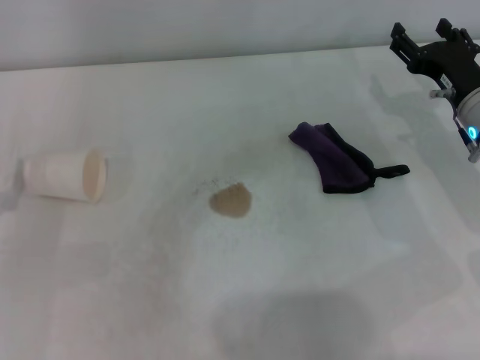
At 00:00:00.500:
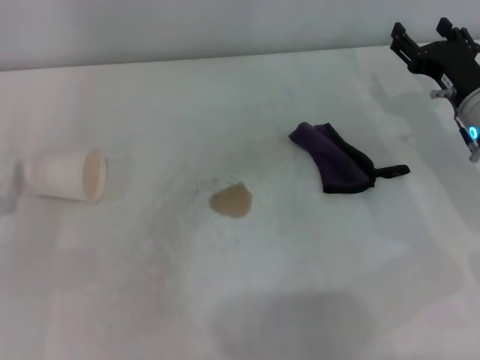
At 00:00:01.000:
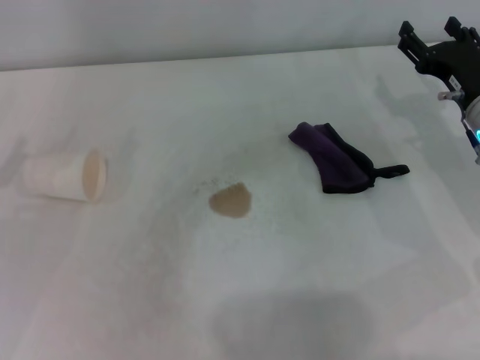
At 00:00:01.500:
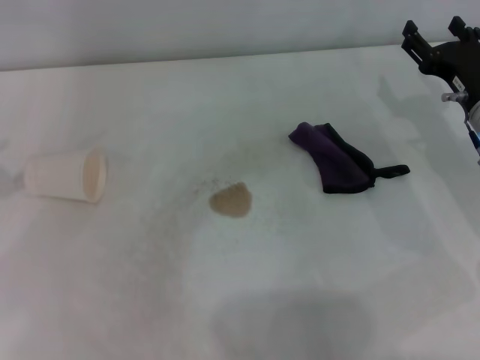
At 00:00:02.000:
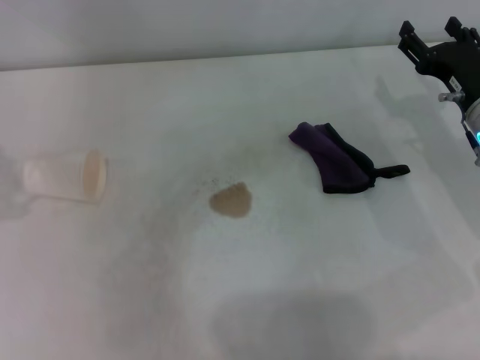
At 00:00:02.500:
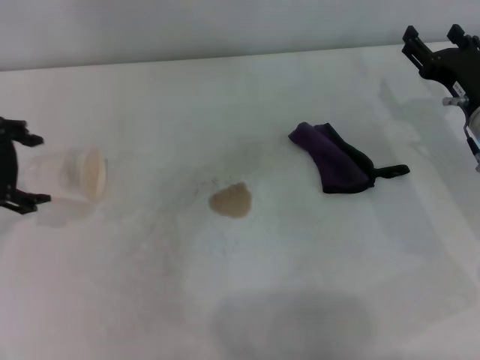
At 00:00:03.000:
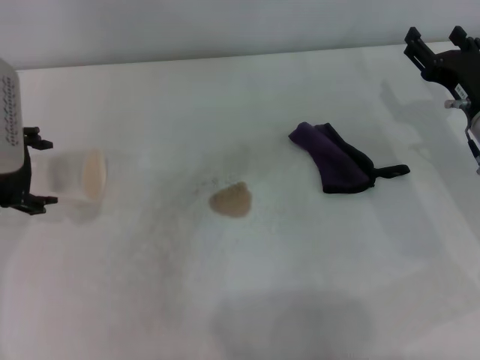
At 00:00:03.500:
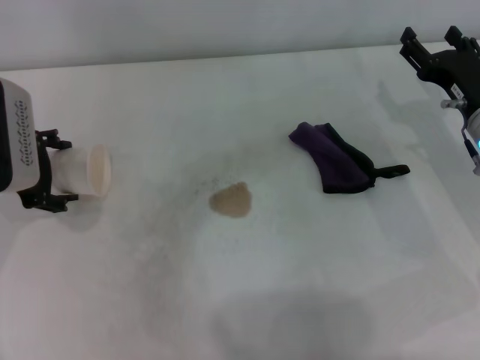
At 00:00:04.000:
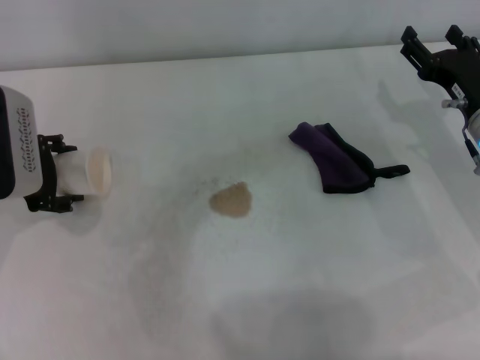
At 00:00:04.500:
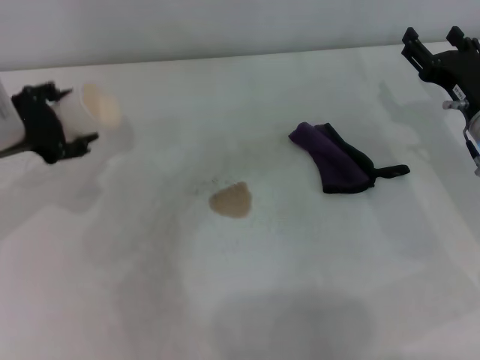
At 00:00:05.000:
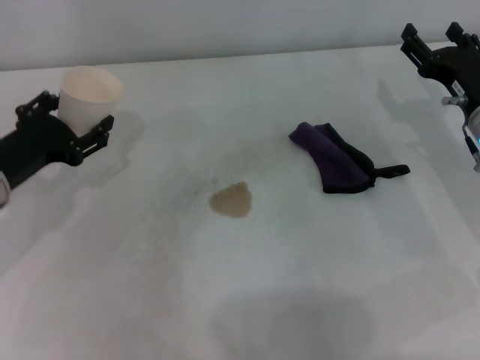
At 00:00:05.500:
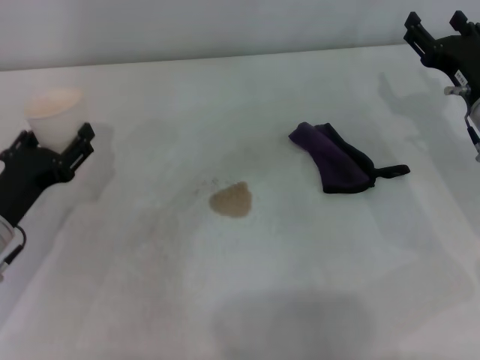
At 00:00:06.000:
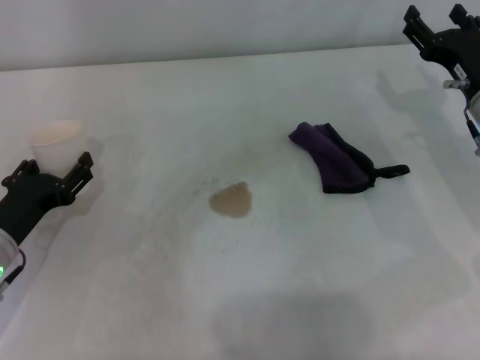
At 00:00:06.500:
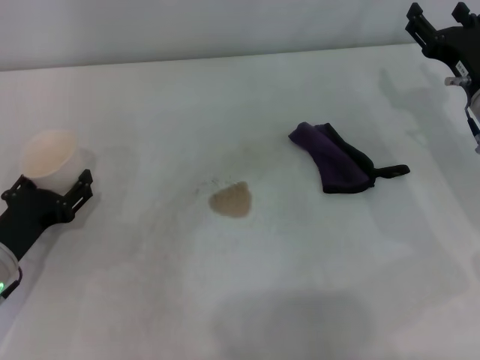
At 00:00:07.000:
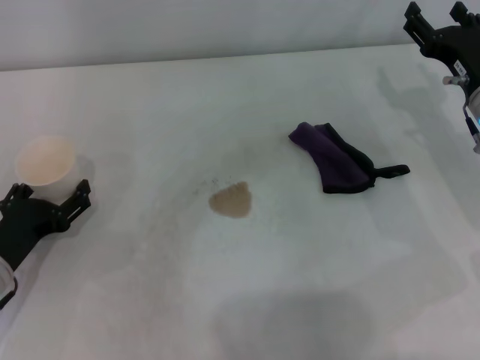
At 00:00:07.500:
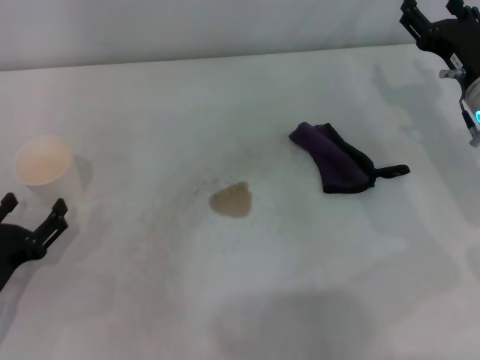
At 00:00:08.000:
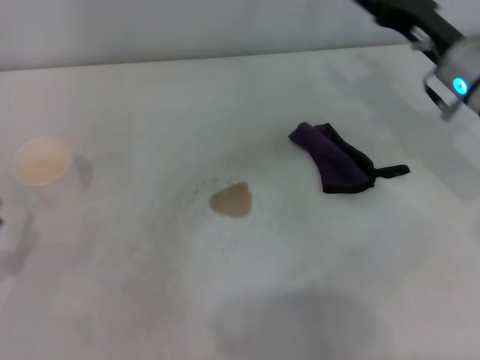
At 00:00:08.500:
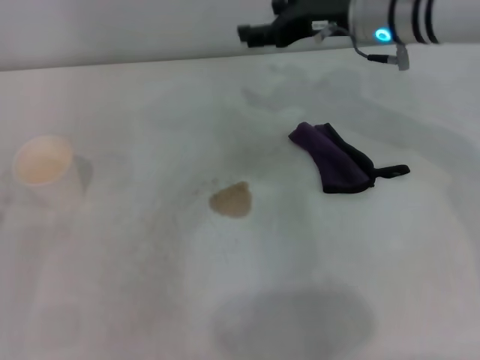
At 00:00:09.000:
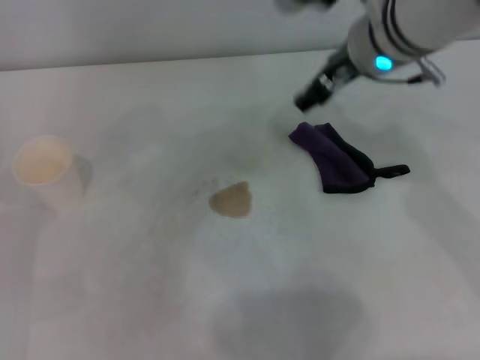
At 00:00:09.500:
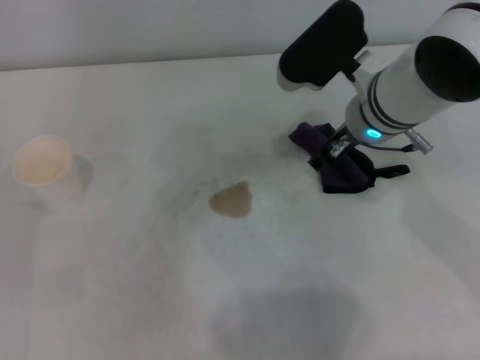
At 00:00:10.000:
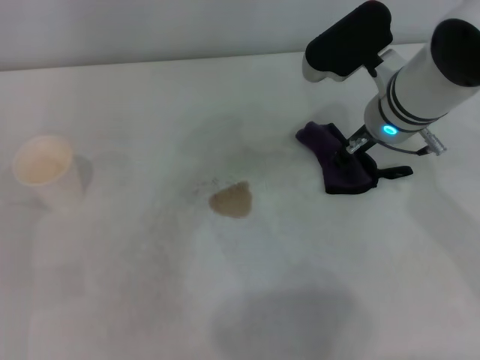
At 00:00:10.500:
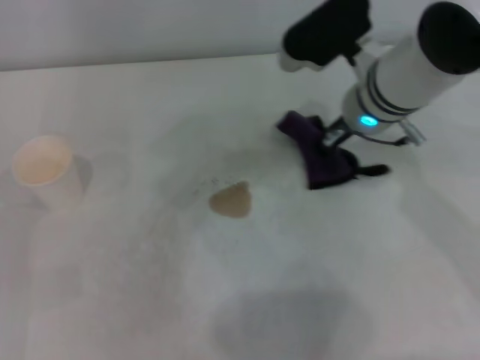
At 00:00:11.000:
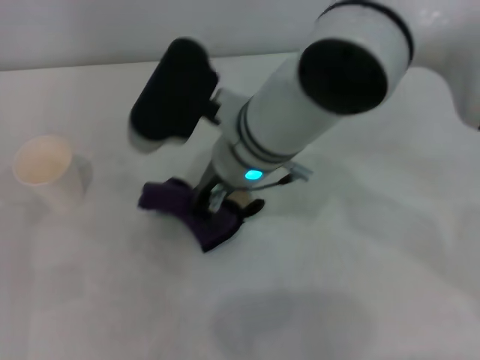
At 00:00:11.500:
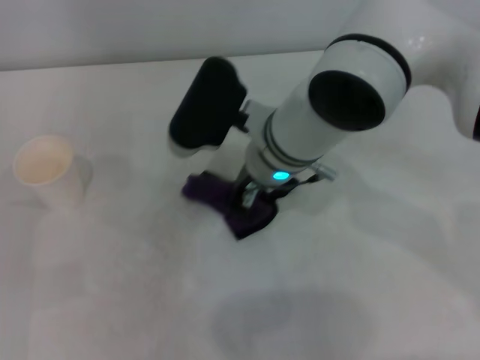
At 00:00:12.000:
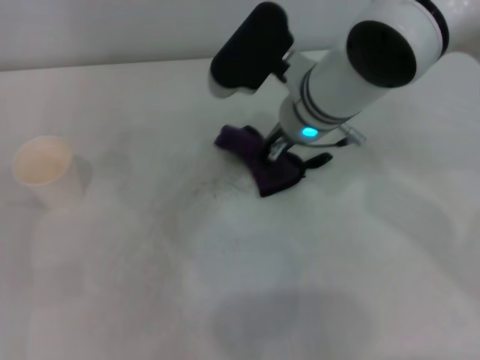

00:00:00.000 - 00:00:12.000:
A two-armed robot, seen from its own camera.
Step, 00:00:00.000 - 00:00:03.500: Grasp the paper cup with the left gripper.
Step, 00:00:04.500 - 00:00:06.500: Stand the paper cup upright with the left gripper.
Step, 00:00:07.000 - 00:00:10.000: Grasp the rag with the right gripper.
00:00:02.000 - 00:00:04.000: The left gripper travels downward and to the right by about 15 cm.
00:00:04.000 - 00:00:06.000: The left gripper moves downward and backward, roughly 10 cm, and closes up.
00:00:06.000 - 00:00:08.000: The right gripper moves approximately 5 cm. The left gripper goes some 10 cm backward and to the left, and opens.
00:00:08.000 - 00:00:10.000: The left gripper goes approximately 5 cm forward. Meanwhile the right gripper moves to the left, approximately 10 cm.
00:00:10.000 - 00:00:12.000: The right gripper travels to the left by some 10 cm, and closes.

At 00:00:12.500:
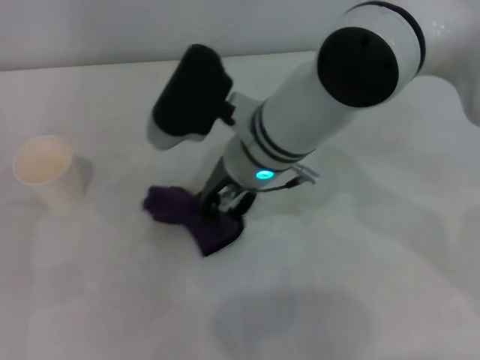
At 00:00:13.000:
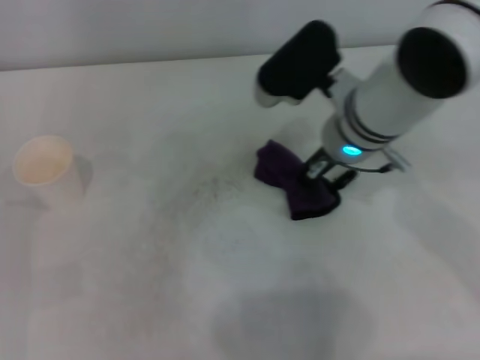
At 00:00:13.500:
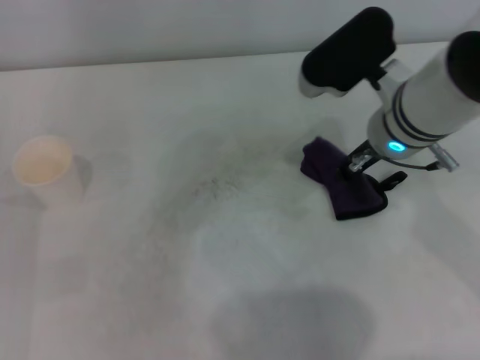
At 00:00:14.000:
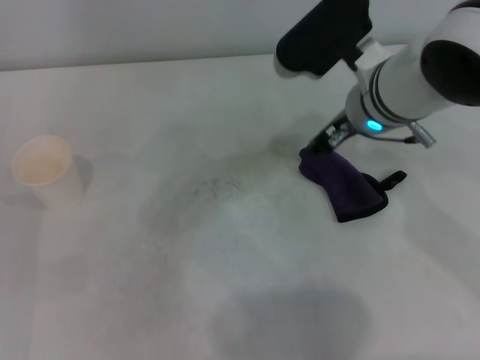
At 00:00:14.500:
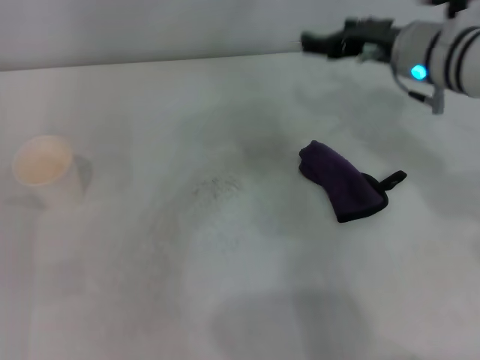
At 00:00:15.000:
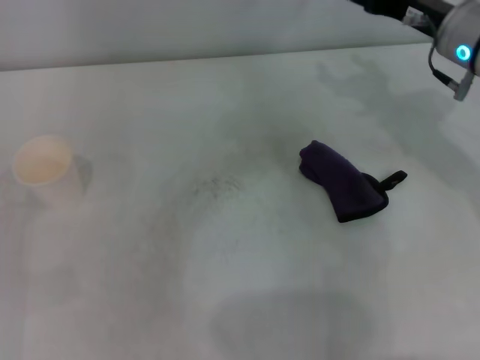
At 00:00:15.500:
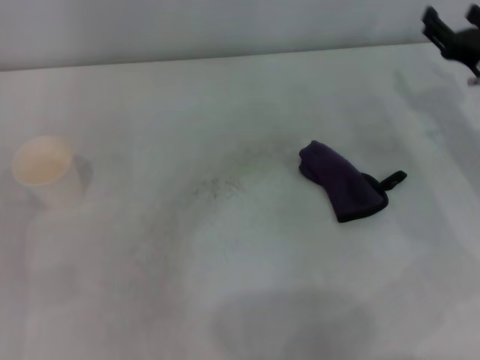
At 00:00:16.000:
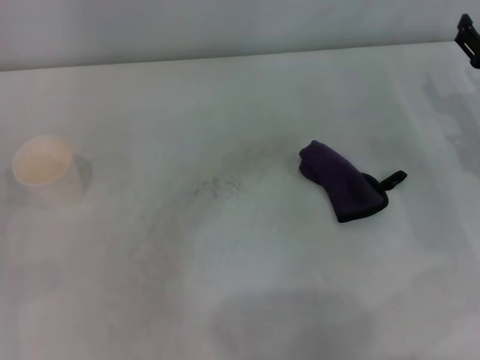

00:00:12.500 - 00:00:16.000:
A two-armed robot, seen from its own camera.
Step, 00:00:13.000 - 00:00:13.500: Place the rag on the table with the right gripper.
00:00:12.500 - 00:00:14.500: The right gripper shifts approximately 15 cm to the right, and opens.
00:00:14.500 - 00:00:16.000: The right gripper goes some 15 cm to the right and downward.

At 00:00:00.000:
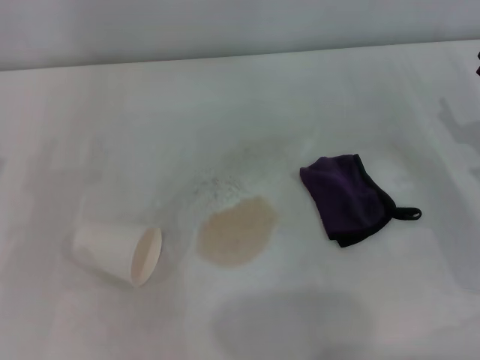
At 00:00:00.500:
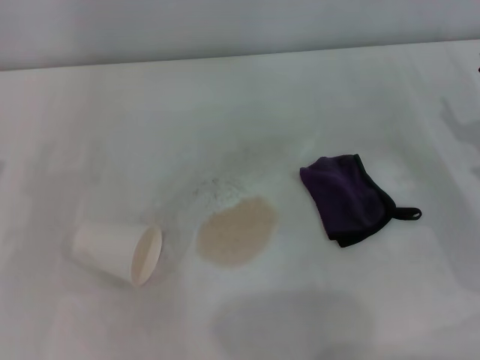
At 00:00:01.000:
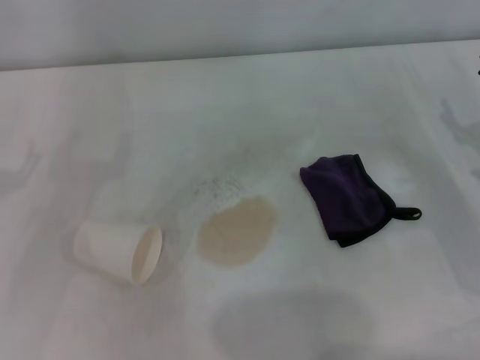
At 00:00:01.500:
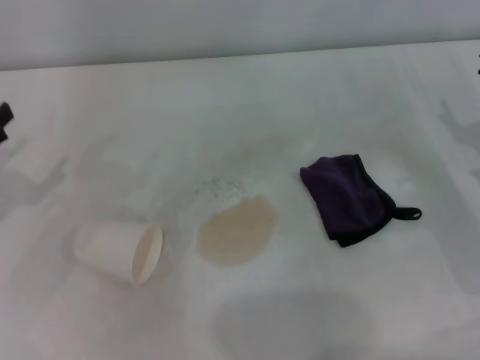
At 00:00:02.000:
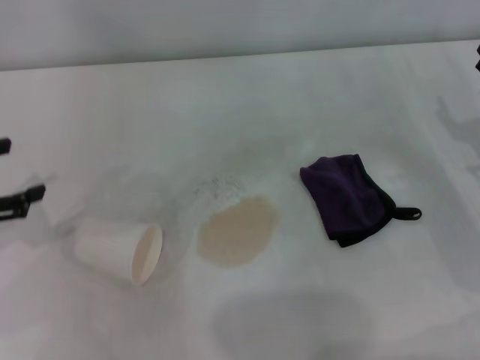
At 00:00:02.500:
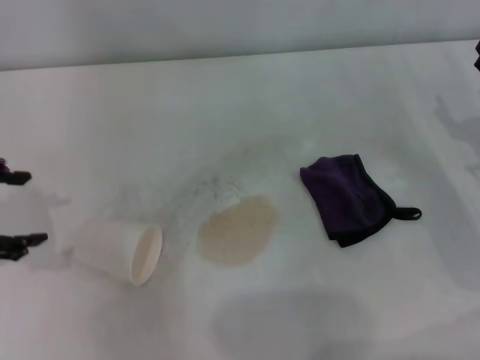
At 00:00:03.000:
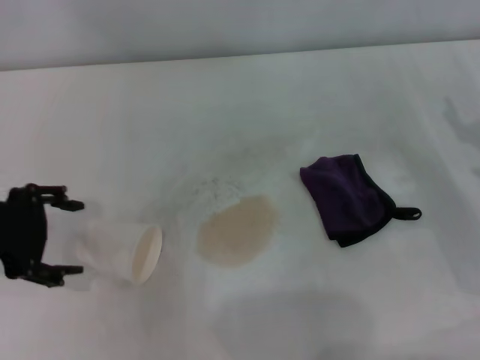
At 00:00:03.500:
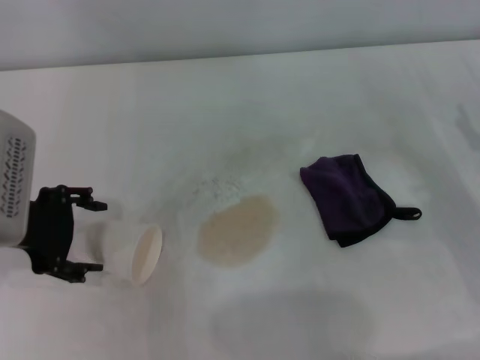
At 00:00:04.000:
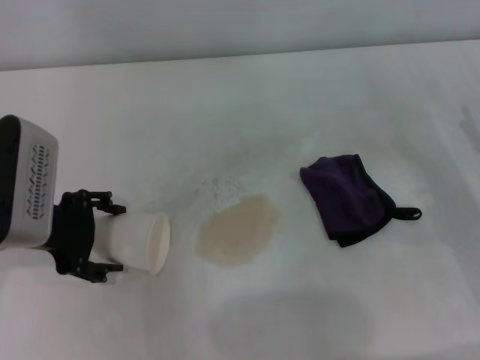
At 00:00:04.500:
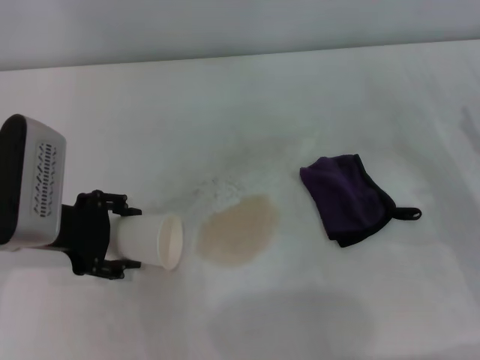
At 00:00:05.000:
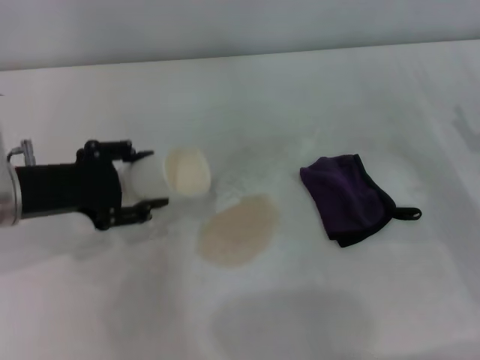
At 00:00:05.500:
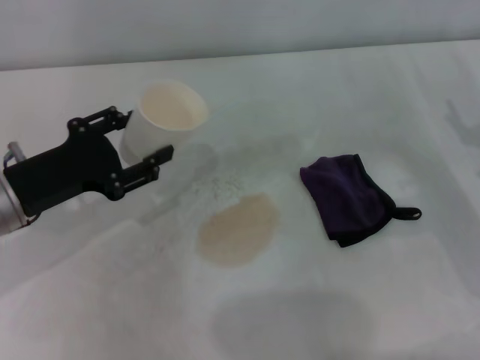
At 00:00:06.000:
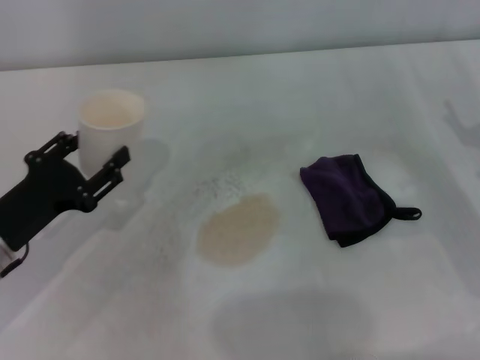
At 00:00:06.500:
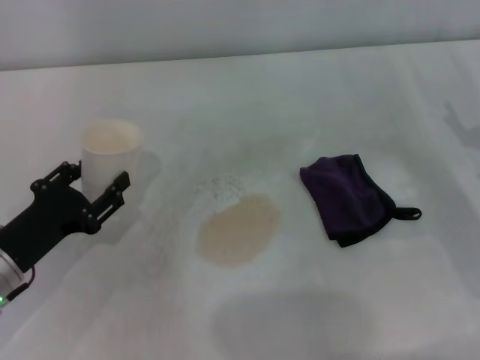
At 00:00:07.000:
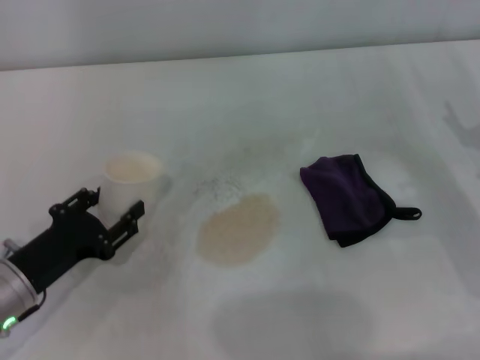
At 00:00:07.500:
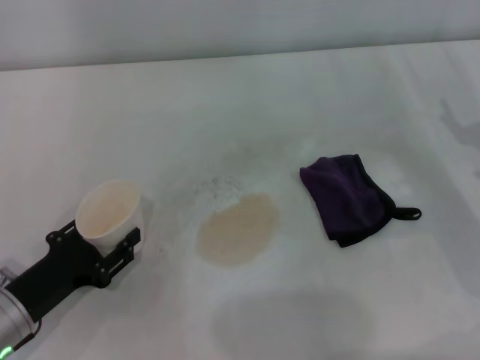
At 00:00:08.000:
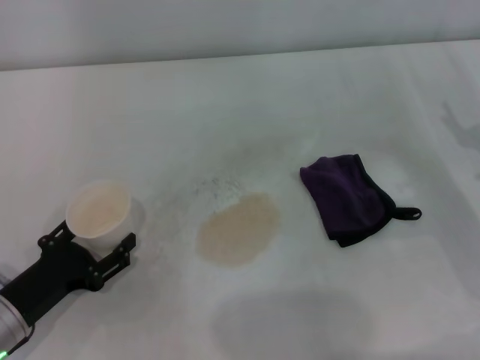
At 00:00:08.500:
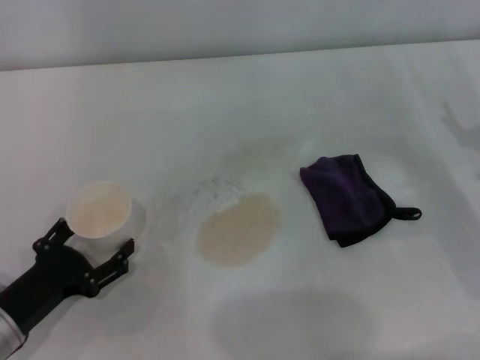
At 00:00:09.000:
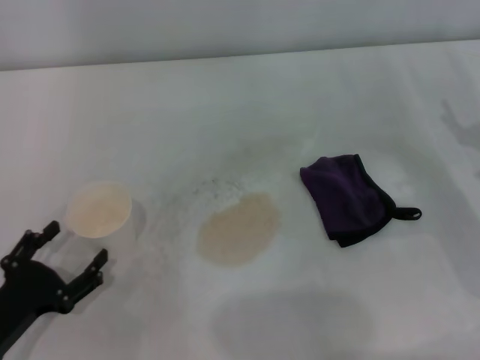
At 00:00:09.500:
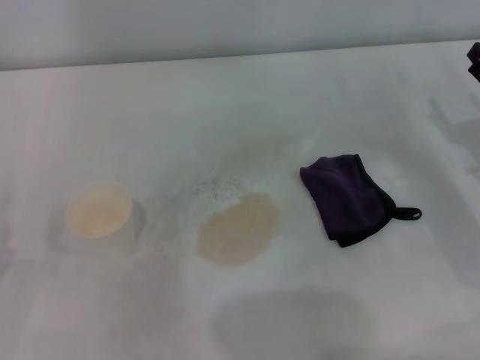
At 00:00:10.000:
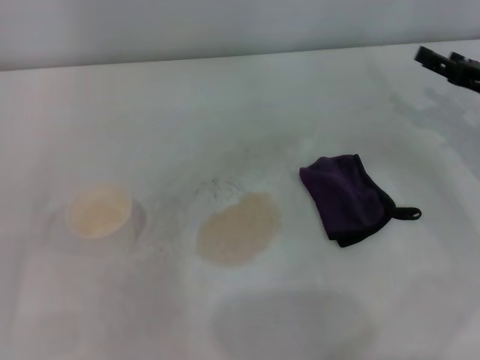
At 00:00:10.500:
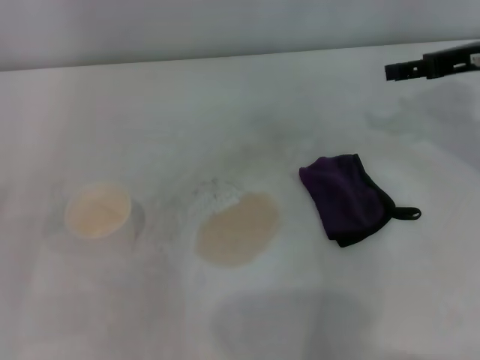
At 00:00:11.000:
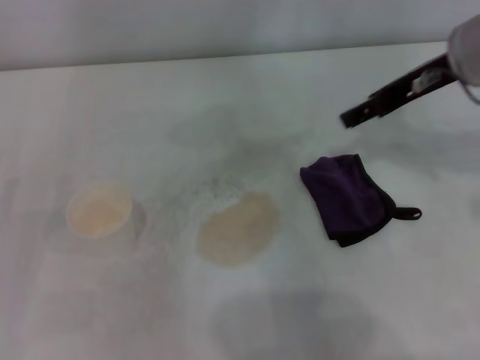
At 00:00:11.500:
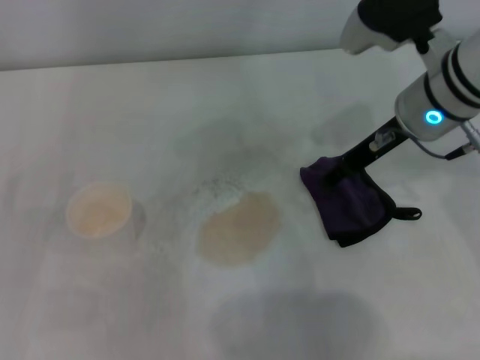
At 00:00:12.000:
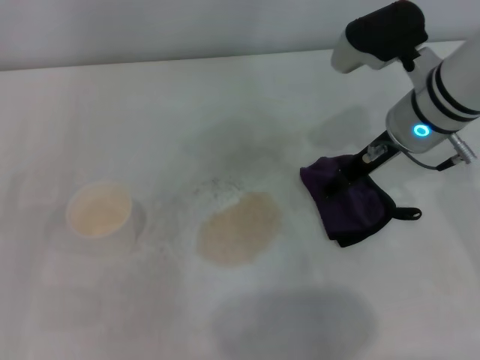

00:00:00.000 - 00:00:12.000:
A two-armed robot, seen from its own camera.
Step, 00:00:00.000 - 00:00:03.500: Grasp the paper cup with the left gripper.
Step, 00:00:04.000 - 00:00:08.000: Stand the paper cup upright with the left gripper.
00:00:00.000 - 00:00:02.000: The left gripper shifts approximately 10 cm upward.
00:00:02.000 - 00:00:04.000: The left gripper travels to the right by about 10 cm.
00:00:04.000 - 00:00:06.000: The left gripper shifts about 10 cm downward, and closes its fingers.
00:00:06.000 - 00:00:08.000: The left gripper shifts roughly 5 cm downward and backward.
00:00:08.000 - 00:00:10.000: The left gripper shifts about 10 cm to the left, and opens its fingers; the right gripper moves forward, approximately 5 cm.
00:00:10.000 - 00:00:12.000: The right gripper is displaced to the left by roughly 15 cm.
